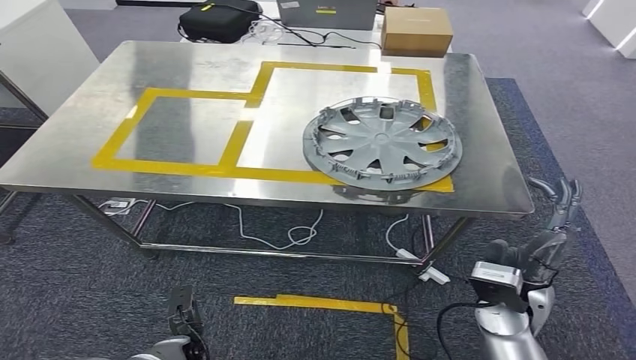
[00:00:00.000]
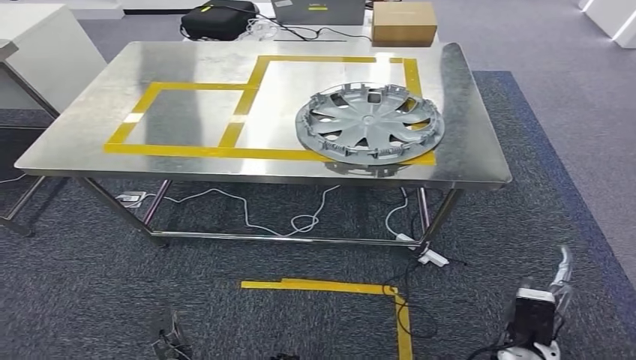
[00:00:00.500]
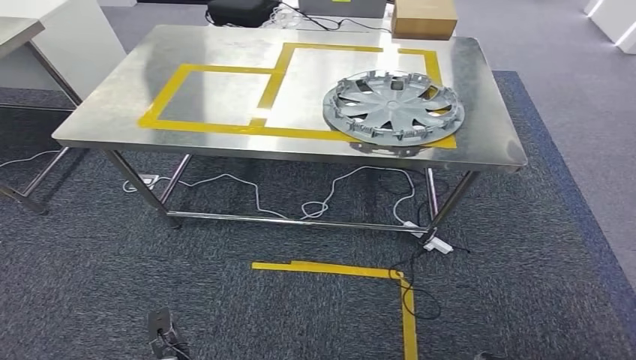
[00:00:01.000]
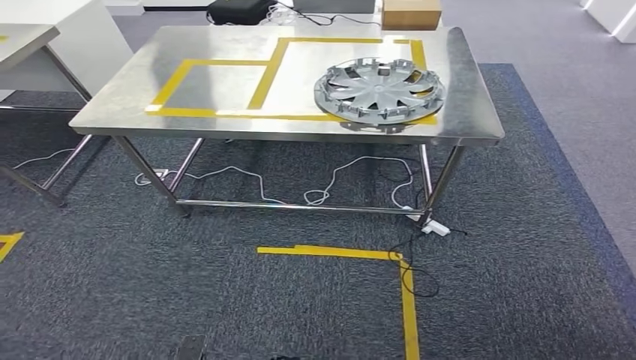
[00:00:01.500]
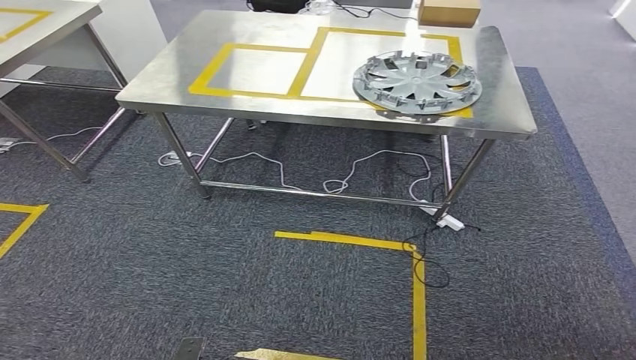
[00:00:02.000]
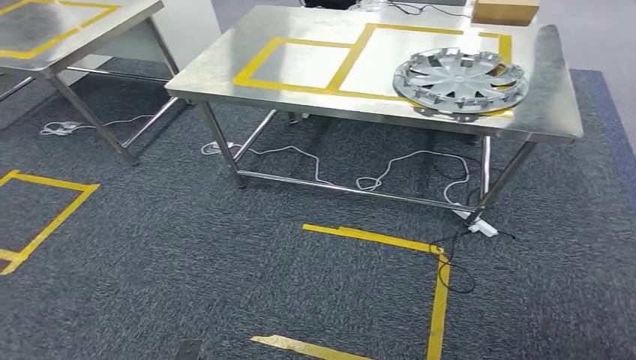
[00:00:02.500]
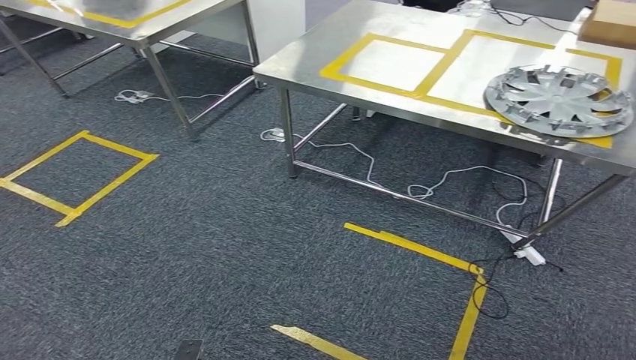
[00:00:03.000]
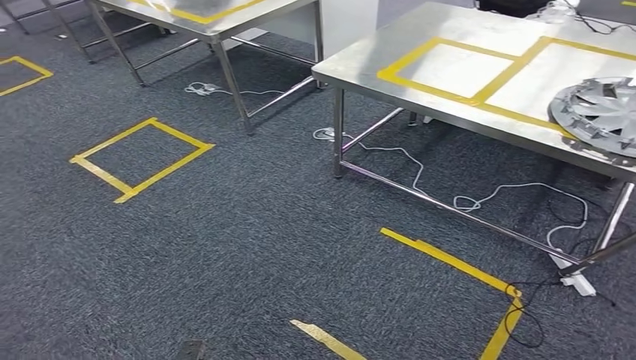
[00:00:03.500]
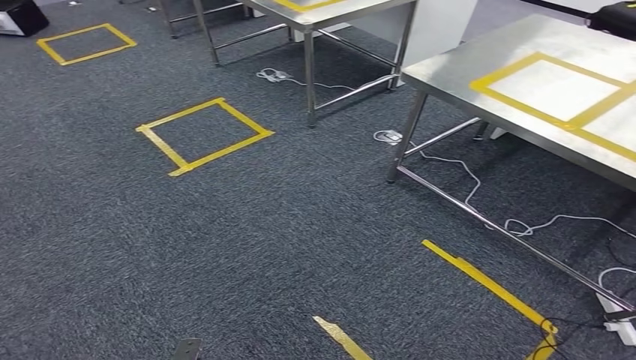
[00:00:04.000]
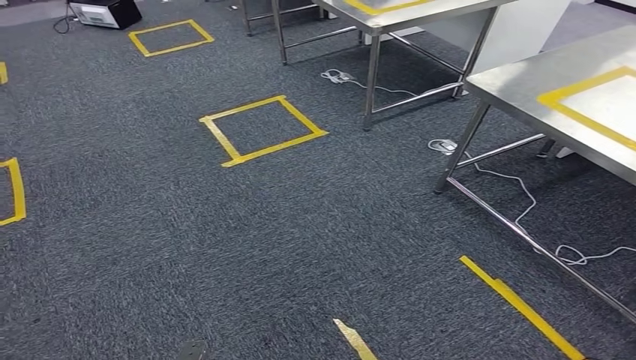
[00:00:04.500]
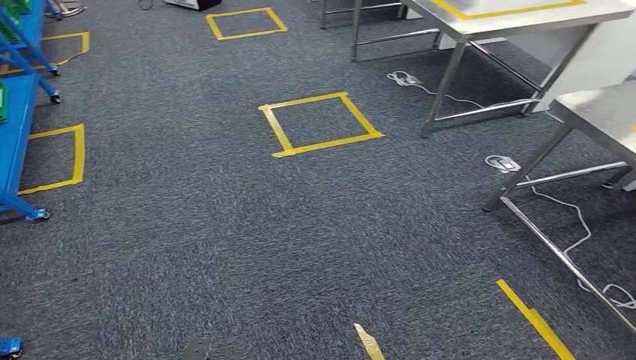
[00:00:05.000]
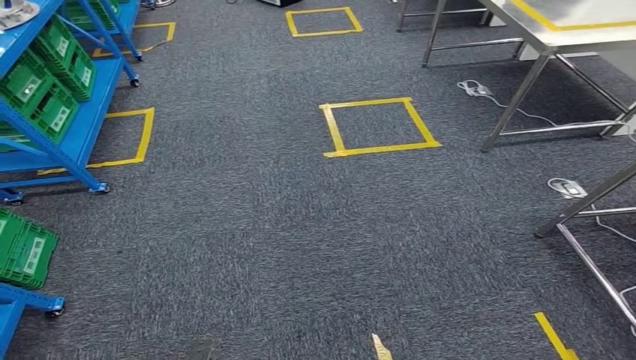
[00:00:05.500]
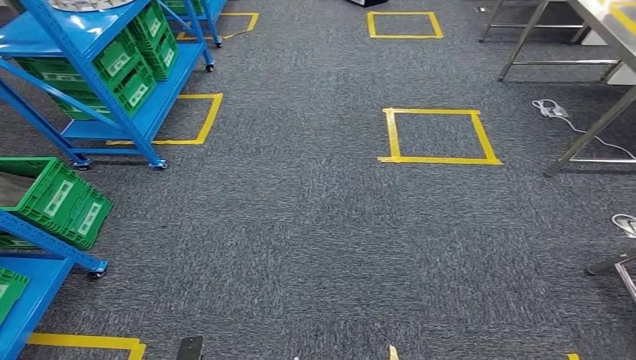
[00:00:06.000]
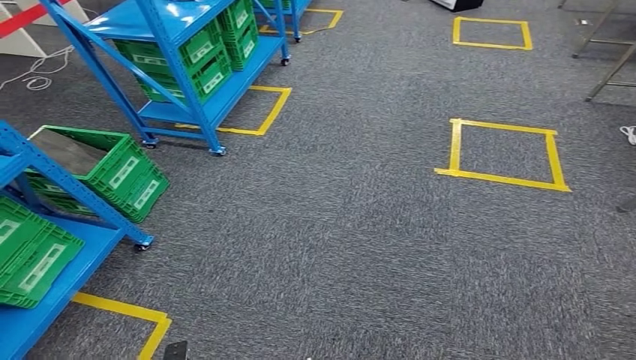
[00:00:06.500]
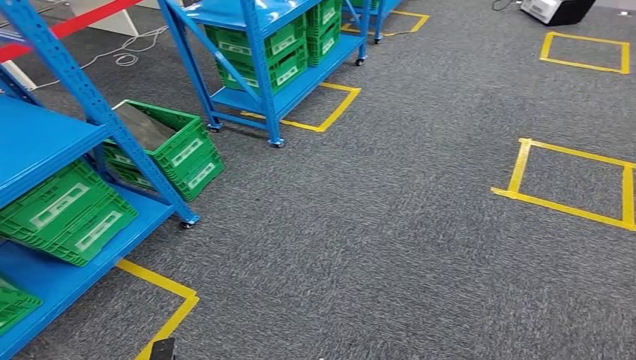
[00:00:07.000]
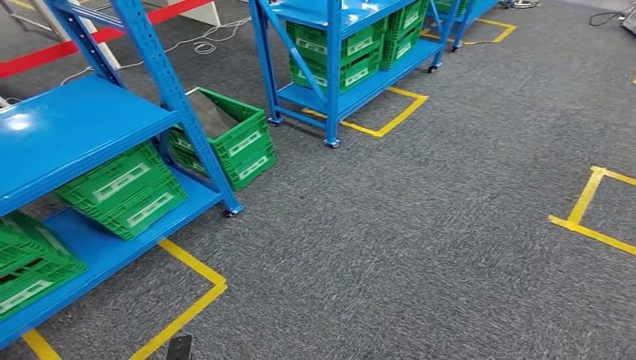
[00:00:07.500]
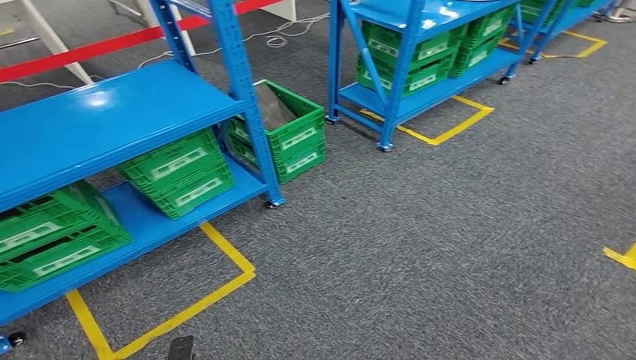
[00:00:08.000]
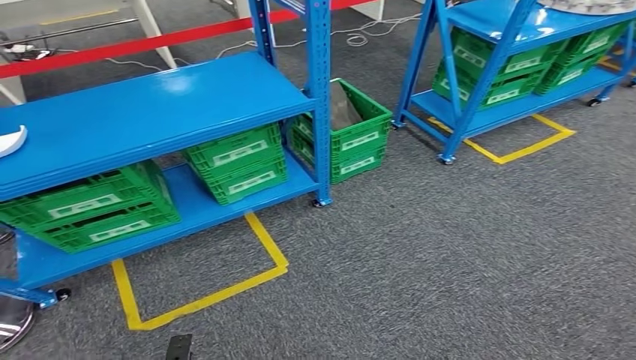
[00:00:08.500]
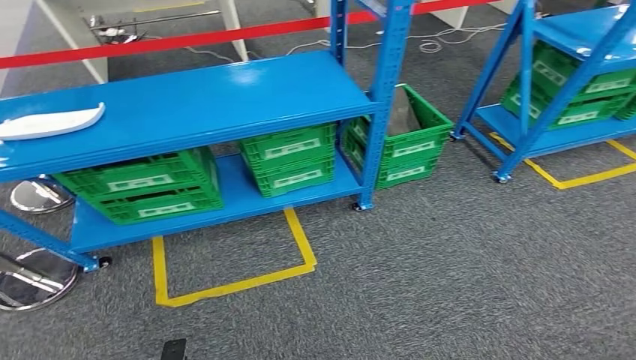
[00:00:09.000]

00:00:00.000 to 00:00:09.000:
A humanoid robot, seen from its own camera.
Step, 00:00:00.000 to 00:00:02.500: Insert the small parts into the corresponding holes on the workbench.

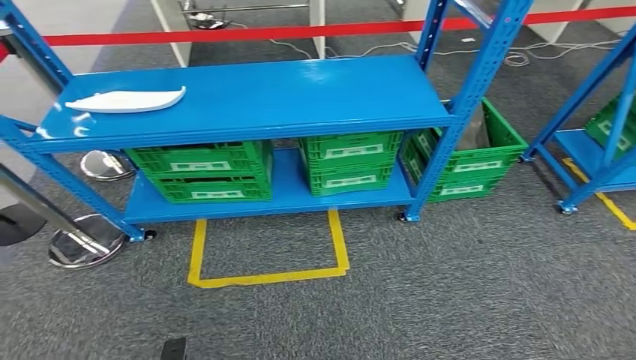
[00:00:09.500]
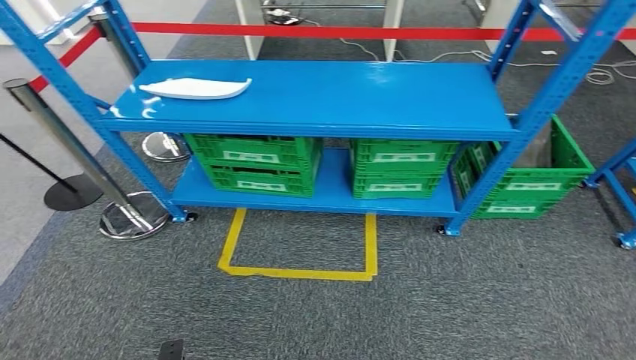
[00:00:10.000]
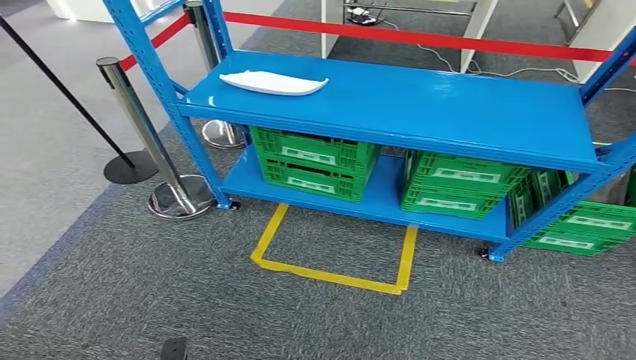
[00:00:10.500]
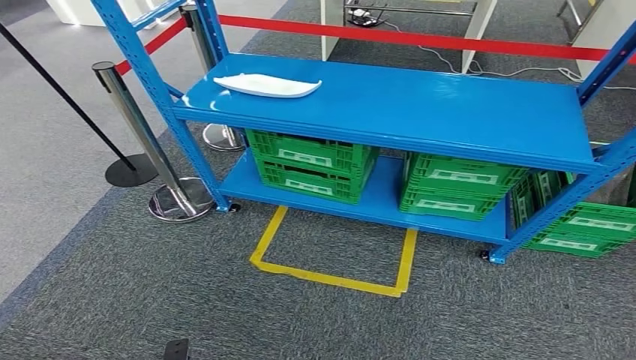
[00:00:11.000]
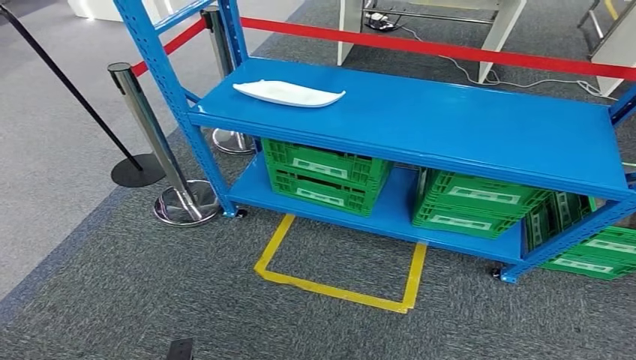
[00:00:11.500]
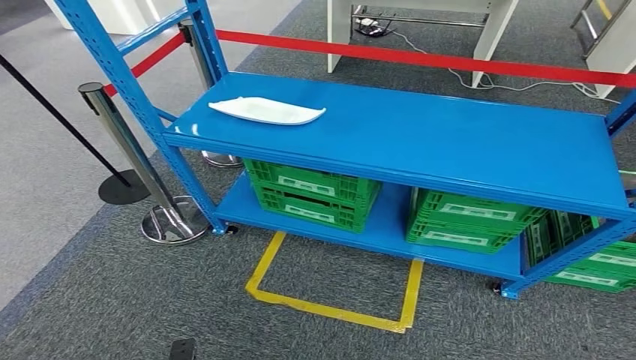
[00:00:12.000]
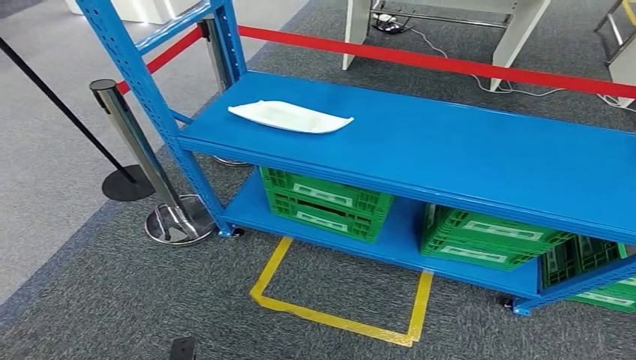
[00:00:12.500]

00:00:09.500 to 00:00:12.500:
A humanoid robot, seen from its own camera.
Step, 00:00:09.500 to 00:00:12.500: Move to the initial position at the workbench.
